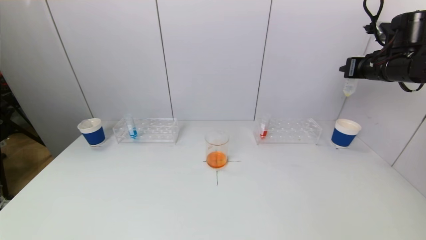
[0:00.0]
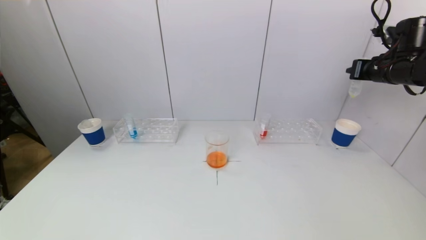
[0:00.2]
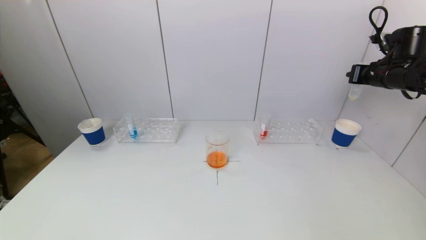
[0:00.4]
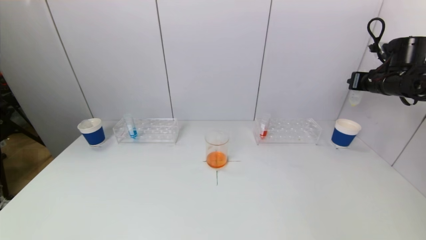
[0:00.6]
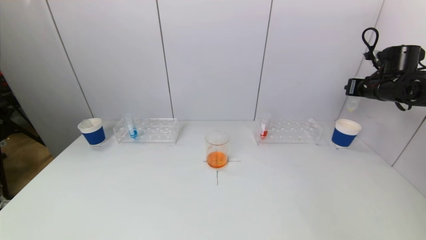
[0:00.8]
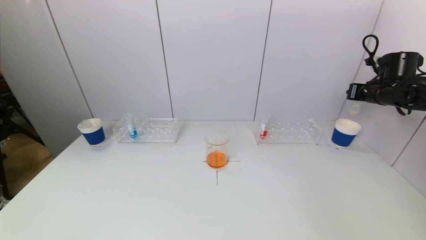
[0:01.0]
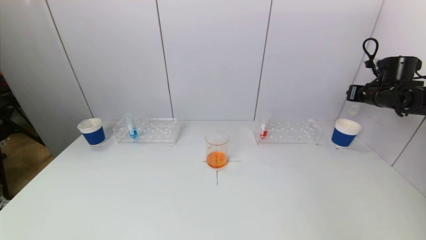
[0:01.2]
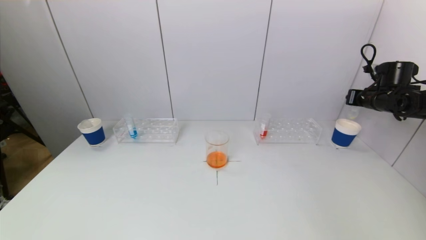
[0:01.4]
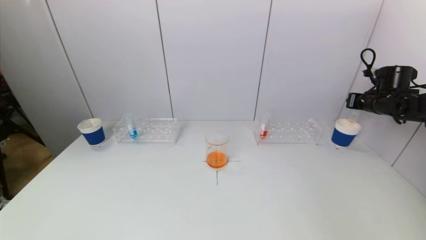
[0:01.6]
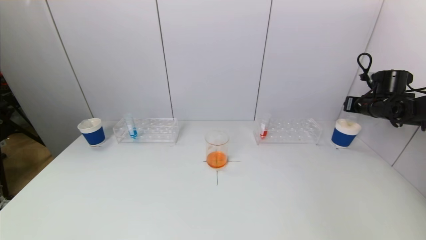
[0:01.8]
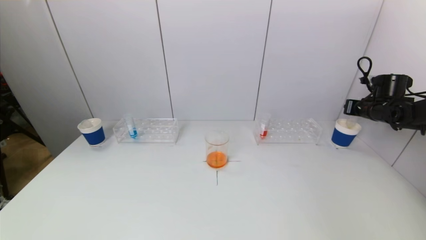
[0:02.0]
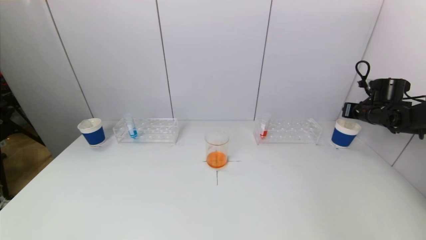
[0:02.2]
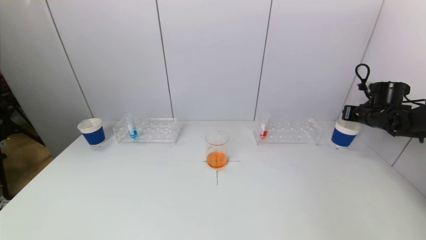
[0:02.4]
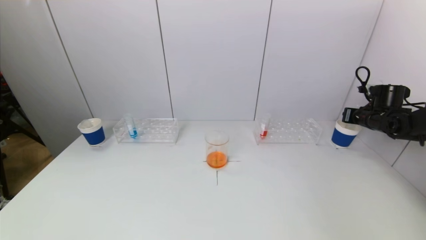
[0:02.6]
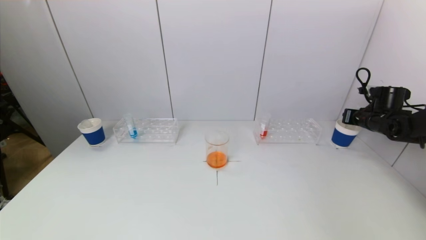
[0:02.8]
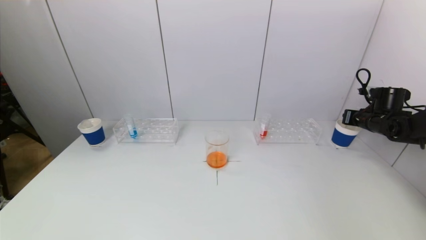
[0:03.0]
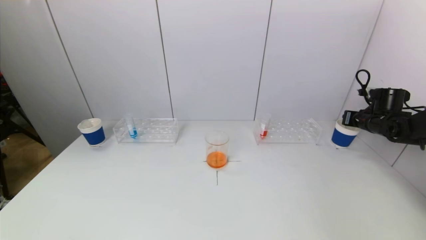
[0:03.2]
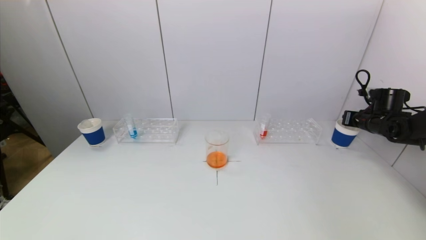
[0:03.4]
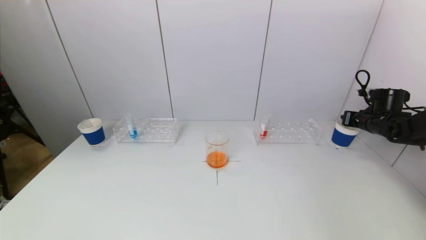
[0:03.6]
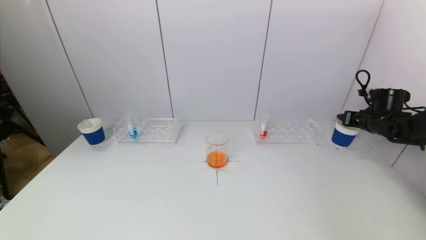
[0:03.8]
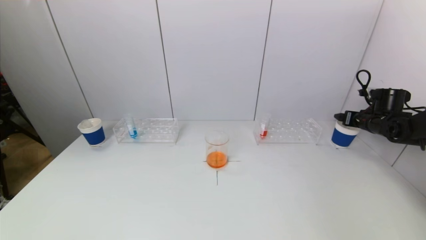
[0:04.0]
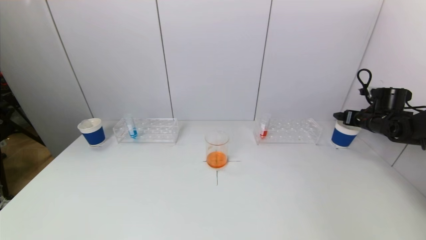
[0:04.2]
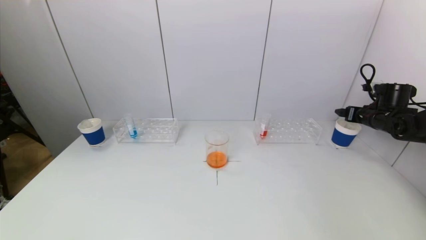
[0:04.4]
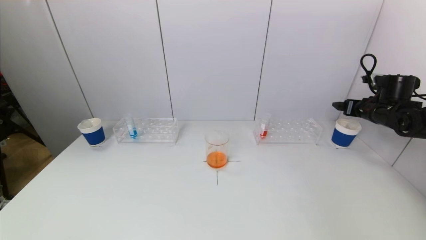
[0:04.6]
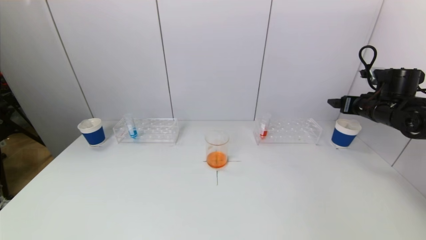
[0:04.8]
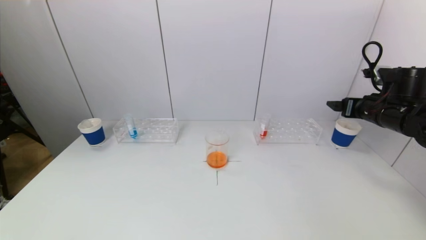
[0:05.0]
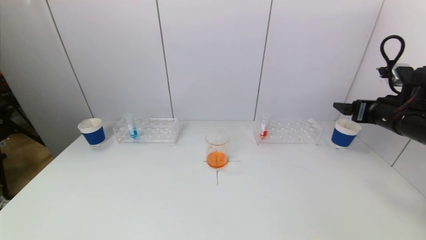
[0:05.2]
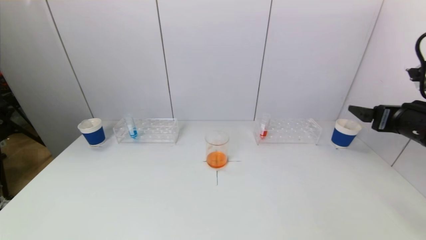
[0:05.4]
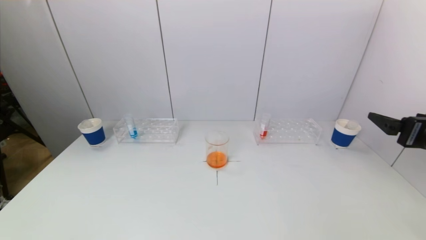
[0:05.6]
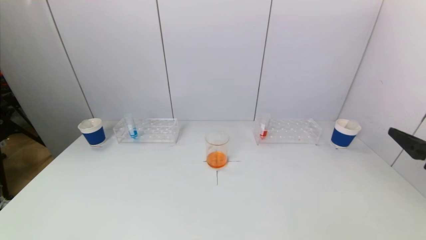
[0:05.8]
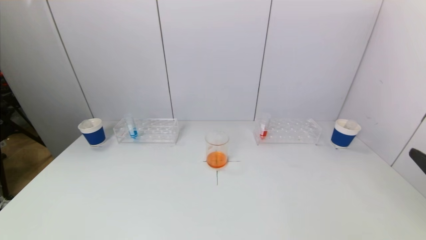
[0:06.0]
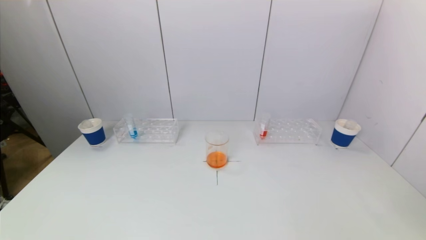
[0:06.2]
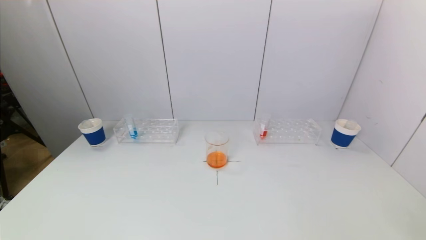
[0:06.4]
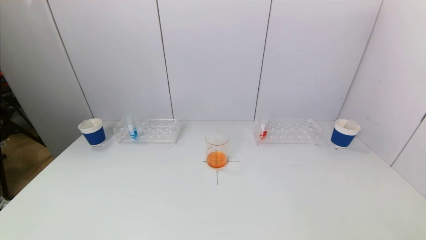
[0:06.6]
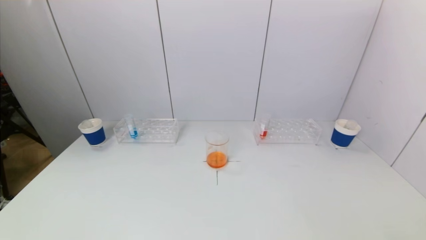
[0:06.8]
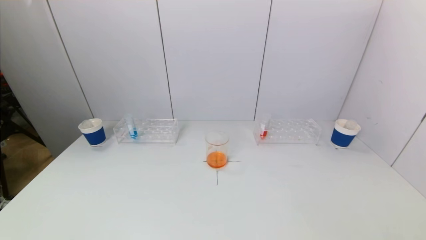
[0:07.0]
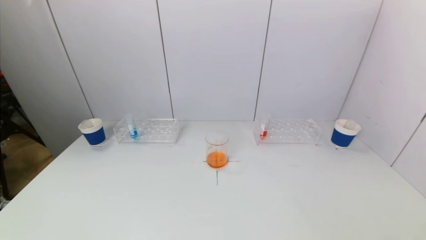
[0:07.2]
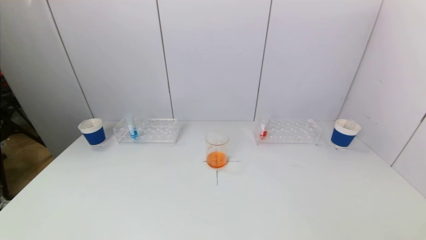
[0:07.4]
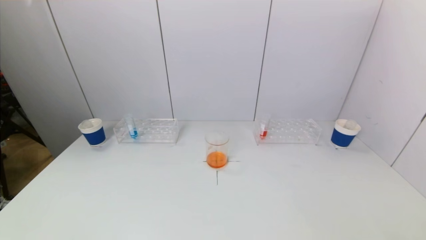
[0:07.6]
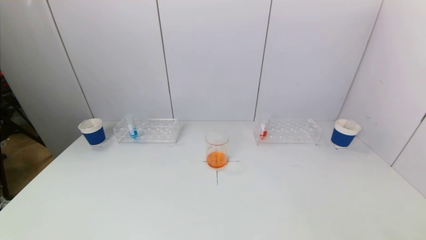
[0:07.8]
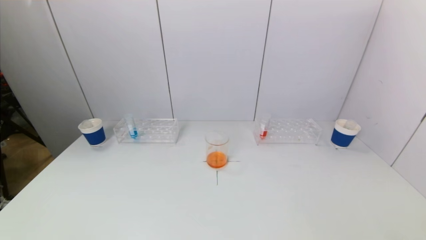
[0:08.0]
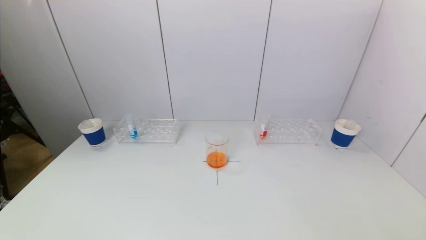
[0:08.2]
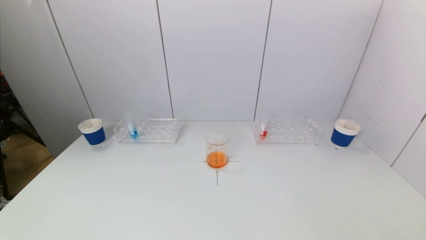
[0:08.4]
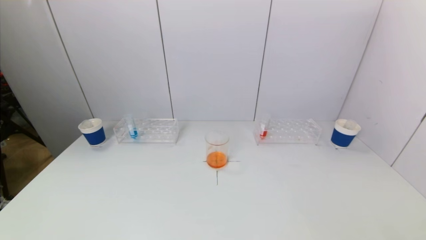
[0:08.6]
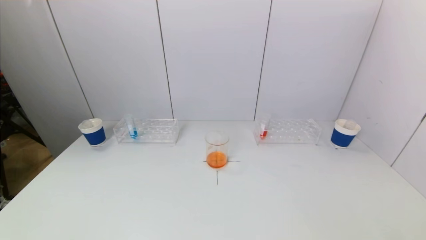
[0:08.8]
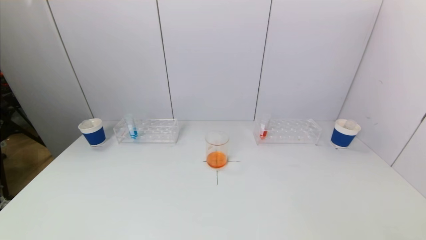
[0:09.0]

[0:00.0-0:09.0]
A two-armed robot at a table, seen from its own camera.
Task of the whole recording: pick up a test tube with pigment on left test tube rack and a test tube with pigment on right test tube rack by grippers and pour them into the beaker.
Step, 0:00.0 to 0:04.0: Place the test tube into the paper cup with the right gripper.
0:00.0 to 0:01.6: The right gripper moves downward, to the right and forward, about 15 cm.
0:01.6 to 0:03.0: The right gripper heads downward, covering some 5 cm.
0:03.0 to 0:04.4: The right gripper opens up.
0:04.4 to 0:06.0: The right gripper moves backward, some 35 cm.
0:06.0 to 0:07.6: The right gripper goes roughly 15 cm downward and backward.
0:07.6 to 0:09.0: The two grippers keep their place.
